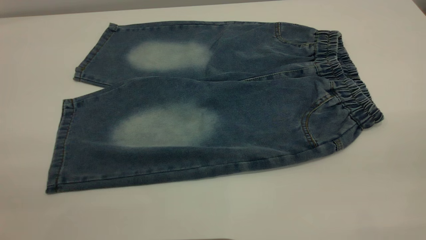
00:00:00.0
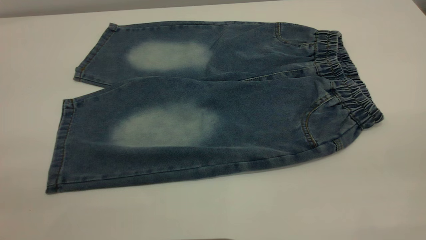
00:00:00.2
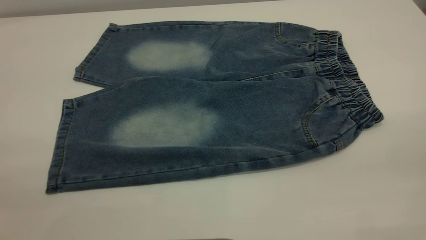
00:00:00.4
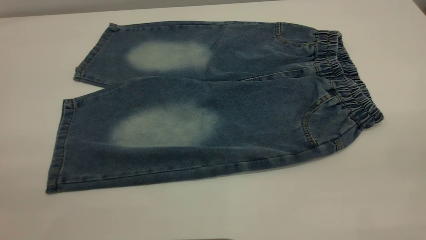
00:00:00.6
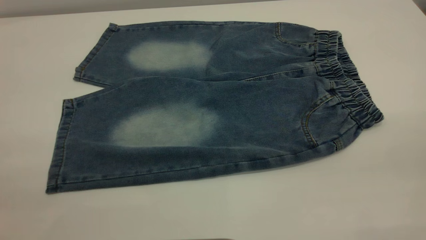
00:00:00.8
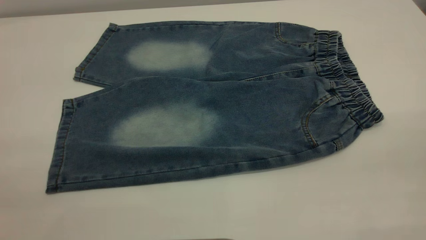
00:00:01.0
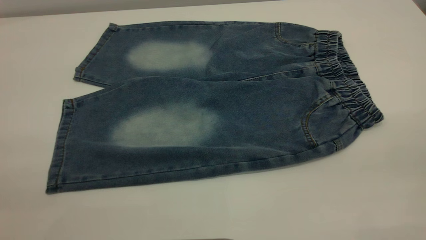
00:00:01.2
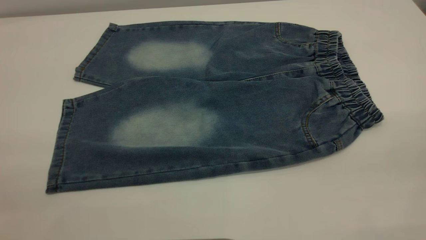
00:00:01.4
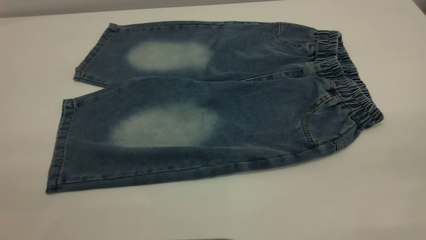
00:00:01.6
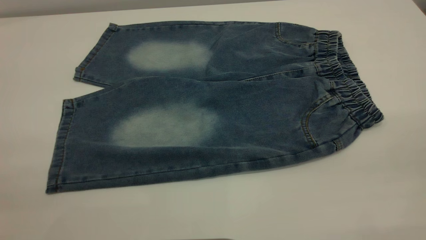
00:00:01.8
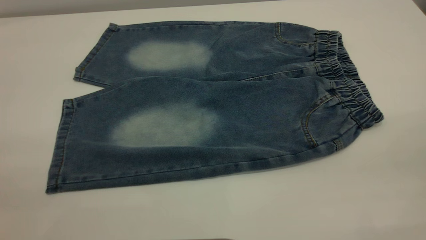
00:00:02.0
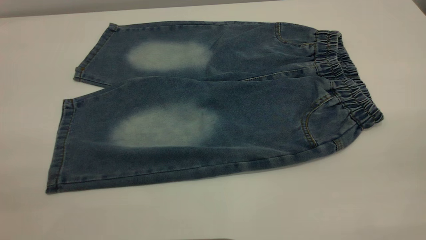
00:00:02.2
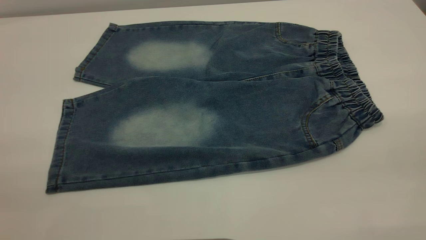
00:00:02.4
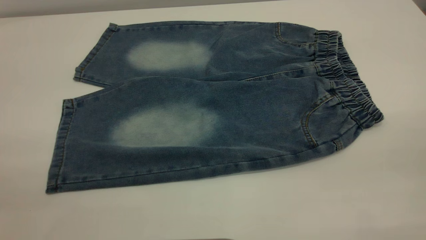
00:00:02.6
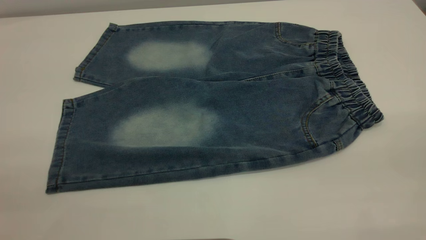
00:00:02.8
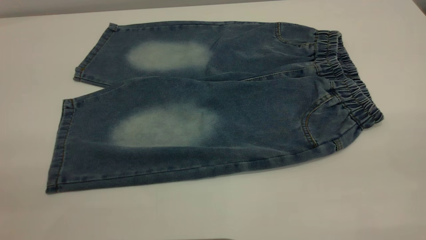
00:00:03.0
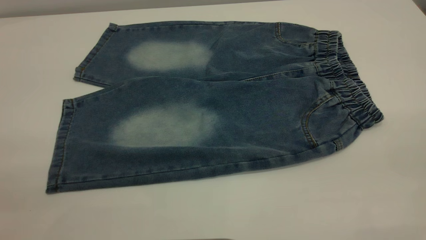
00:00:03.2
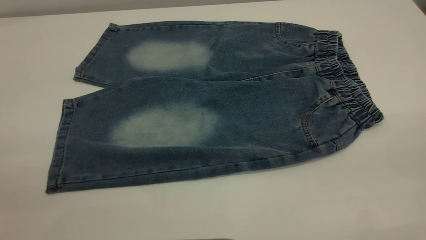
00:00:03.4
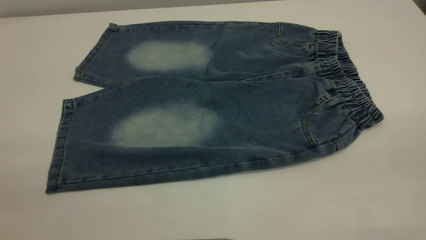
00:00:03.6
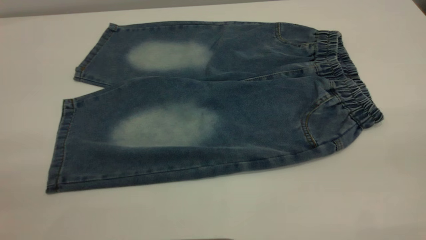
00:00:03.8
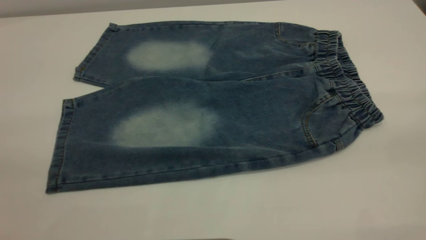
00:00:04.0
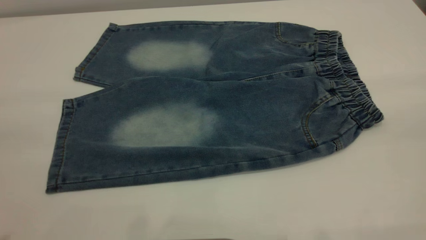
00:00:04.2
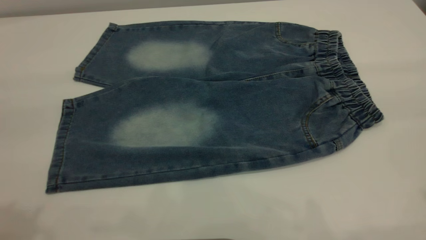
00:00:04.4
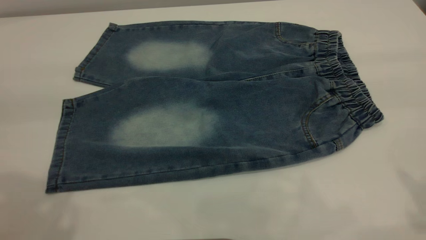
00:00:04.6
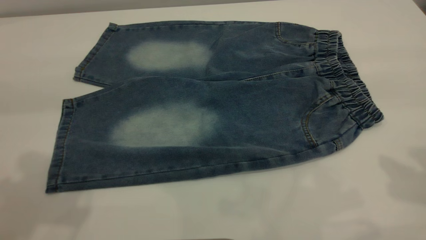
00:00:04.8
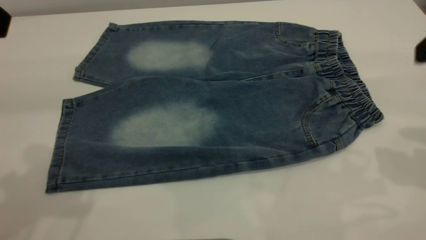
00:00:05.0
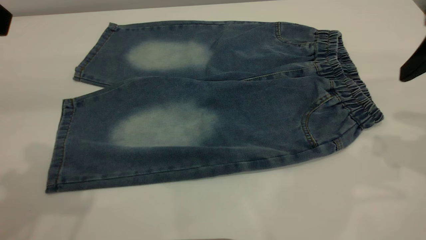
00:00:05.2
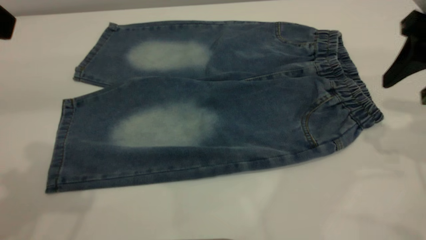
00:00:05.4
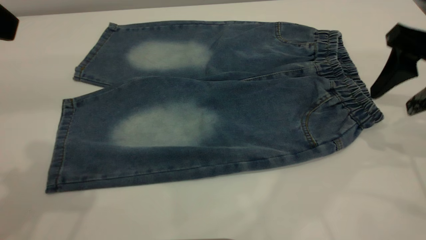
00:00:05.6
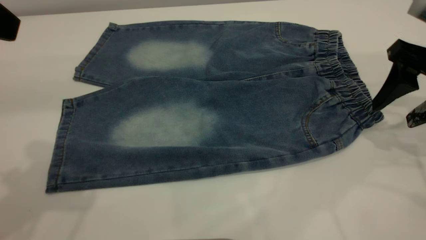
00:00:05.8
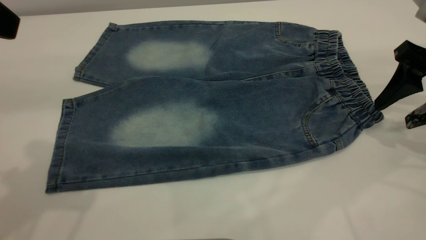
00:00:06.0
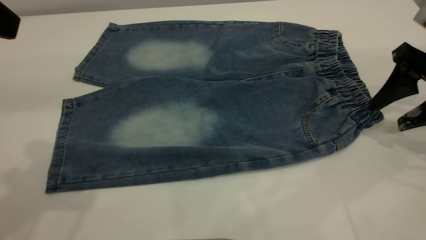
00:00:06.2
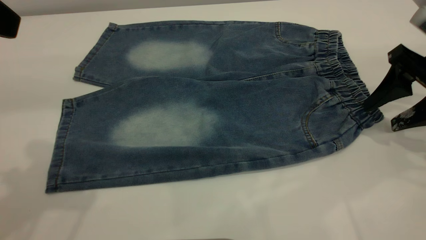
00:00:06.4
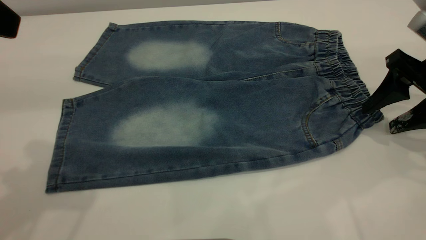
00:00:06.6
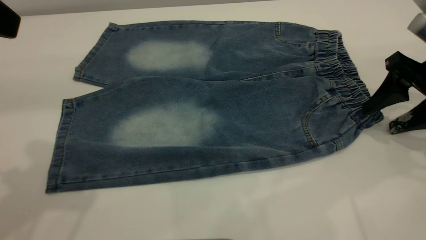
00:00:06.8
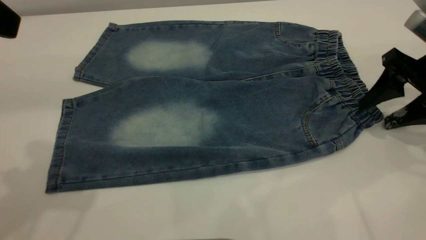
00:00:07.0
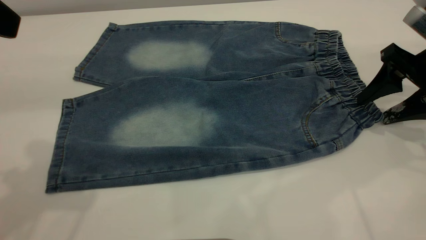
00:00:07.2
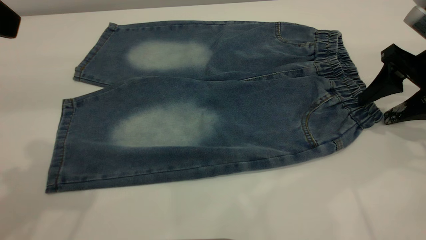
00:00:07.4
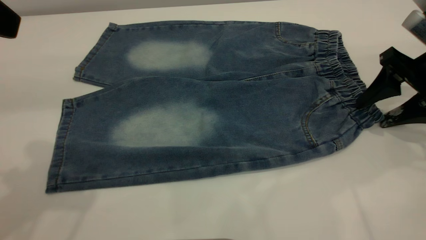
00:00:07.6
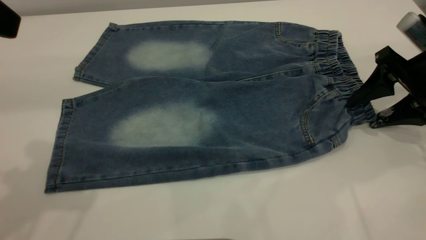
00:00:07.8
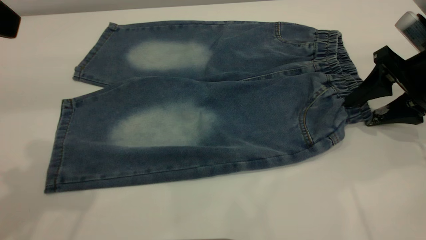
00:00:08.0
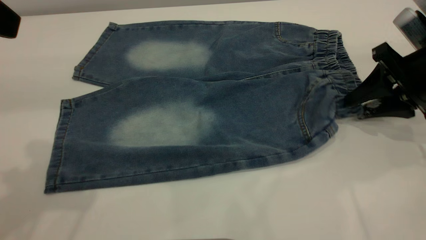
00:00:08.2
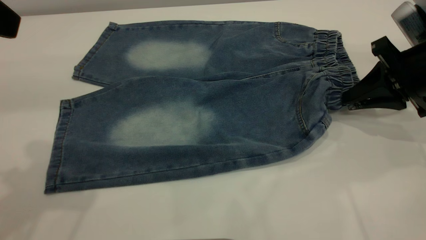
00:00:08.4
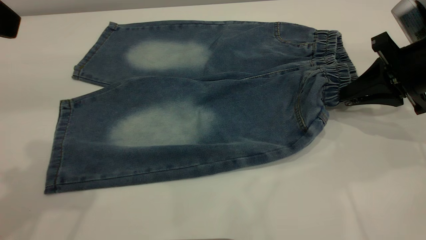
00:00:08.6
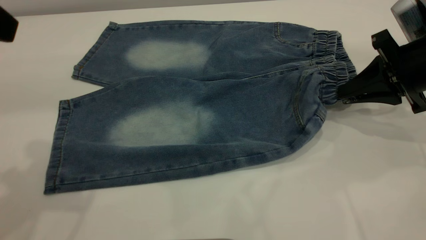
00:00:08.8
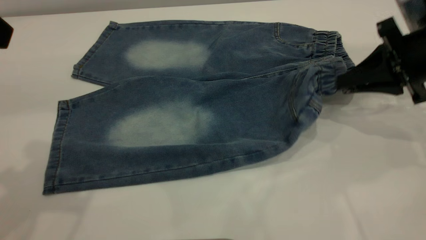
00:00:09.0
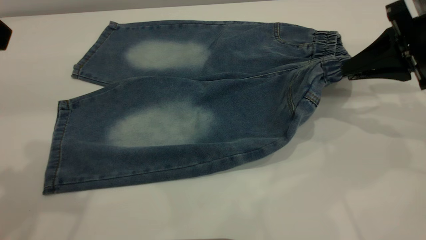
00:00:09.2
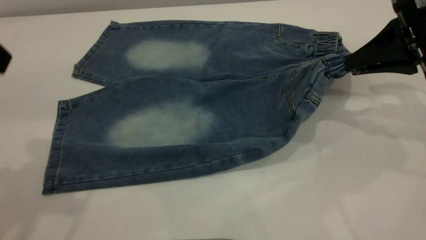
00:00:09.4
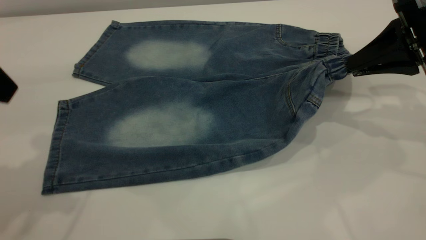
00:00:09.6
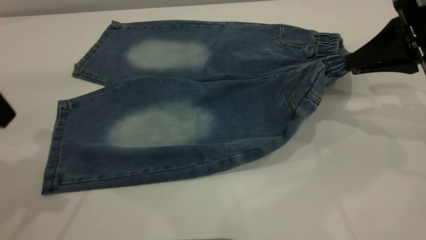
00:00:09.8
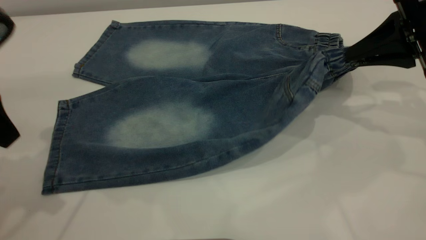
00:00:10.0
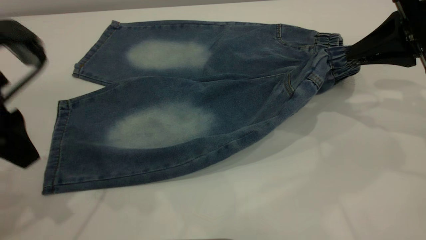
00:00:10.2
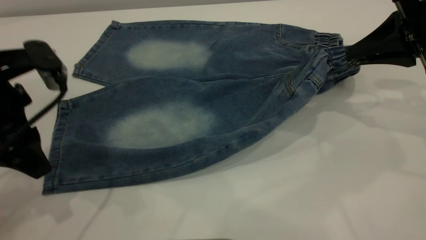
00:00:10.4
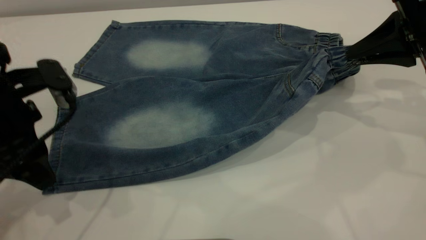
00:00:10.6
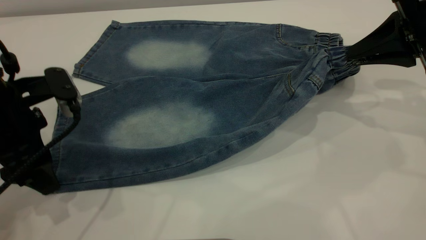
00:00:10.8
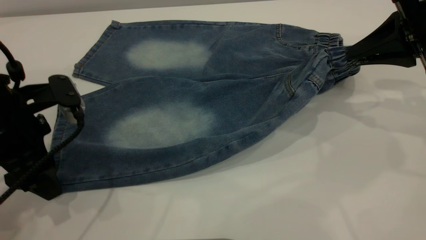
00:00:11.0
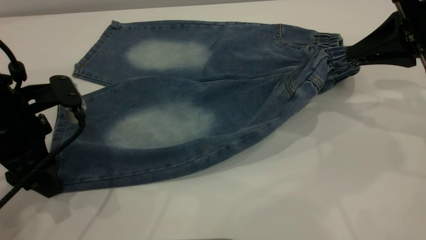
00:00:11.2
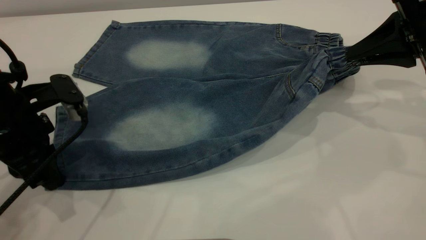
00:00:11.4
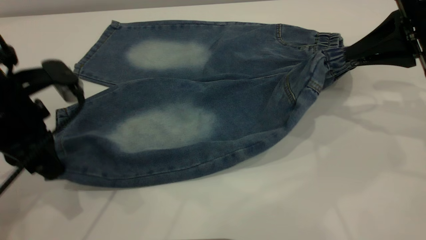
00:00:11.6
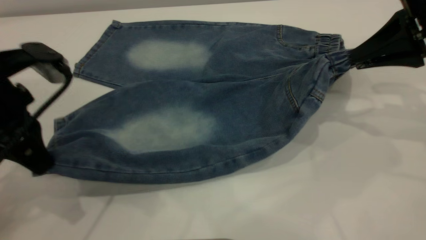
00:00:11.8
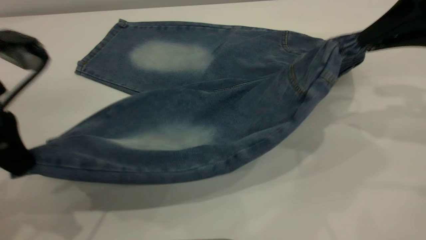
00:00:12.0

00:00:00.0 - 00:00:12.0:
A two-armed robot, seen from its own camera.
00:00:00.0 - 00:00:03.0: The two grippers keep their place.
00:00:04.4 - 00:00:06.0: The right gripper moves downward and forward, roughly 25 cm.
00:00:06.0 - 00:00:07.6: There are only small adjustments of the grippers.
00:00:07.6 - 00:00:09.0: The right gripper closes.
00:00:09.0 - 00:00:10.4: The left gripper heads downward, covering some 15 cm.
00:00:10.4 - 00:00:12.0: The left gripper moves some 5 cm, and closes. Meanwhile the right gripper shifts roughly 5 cm upward.

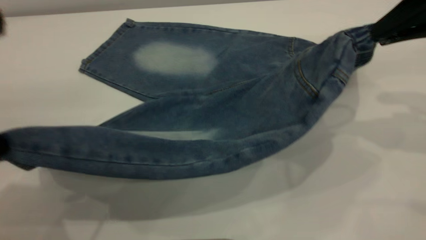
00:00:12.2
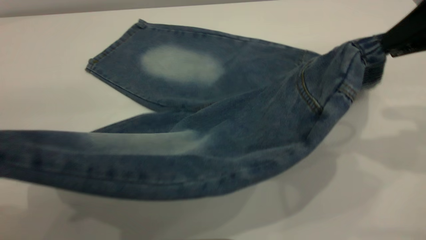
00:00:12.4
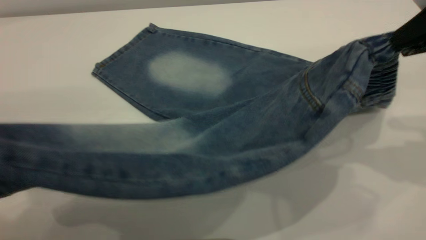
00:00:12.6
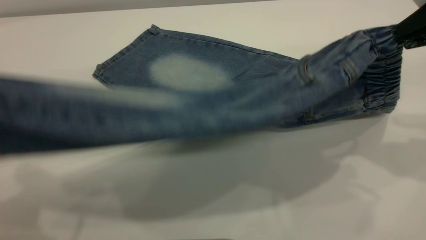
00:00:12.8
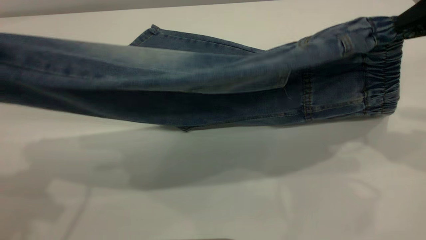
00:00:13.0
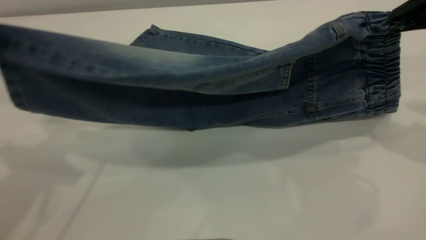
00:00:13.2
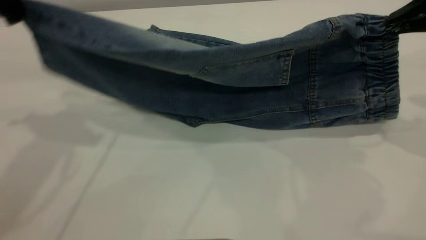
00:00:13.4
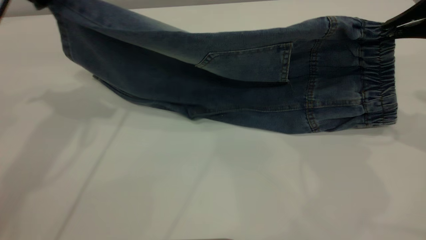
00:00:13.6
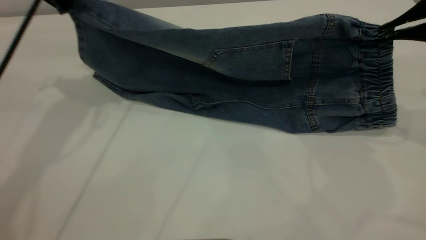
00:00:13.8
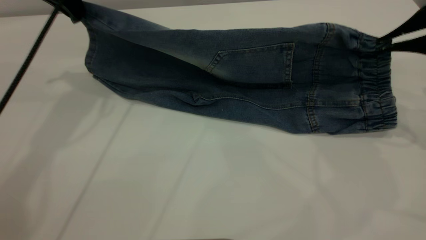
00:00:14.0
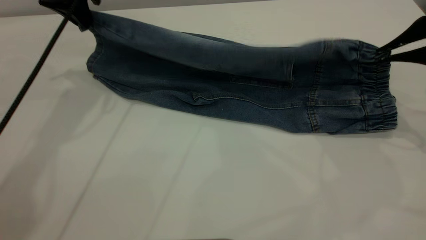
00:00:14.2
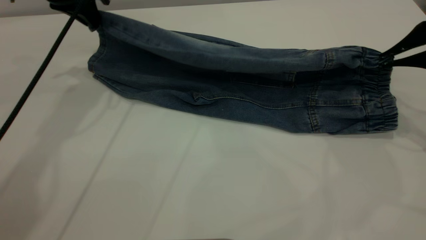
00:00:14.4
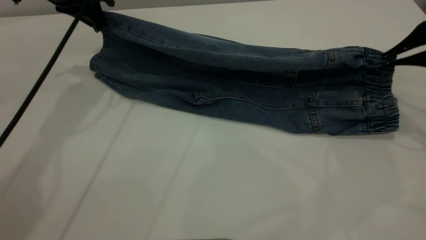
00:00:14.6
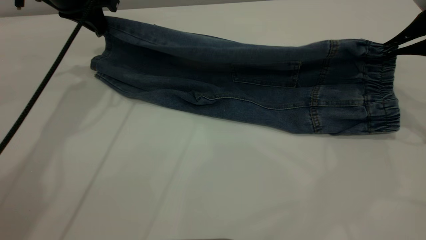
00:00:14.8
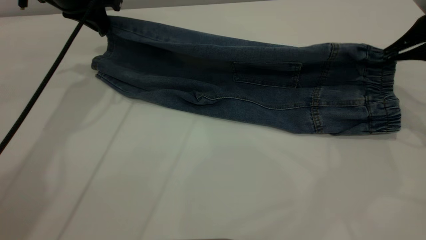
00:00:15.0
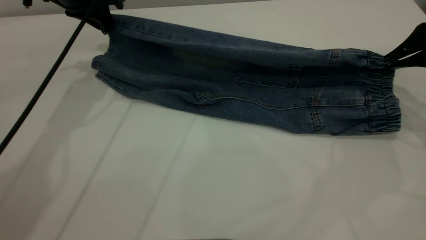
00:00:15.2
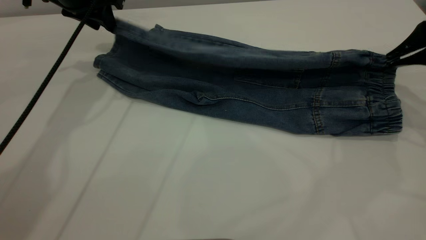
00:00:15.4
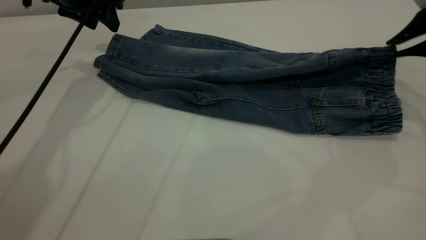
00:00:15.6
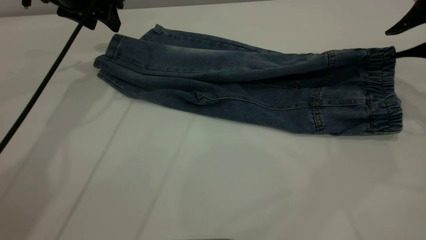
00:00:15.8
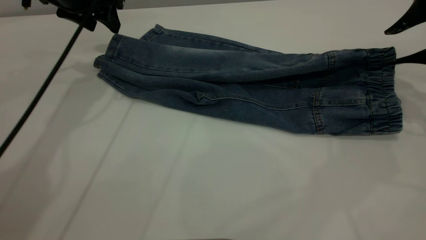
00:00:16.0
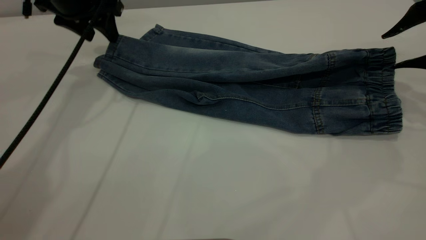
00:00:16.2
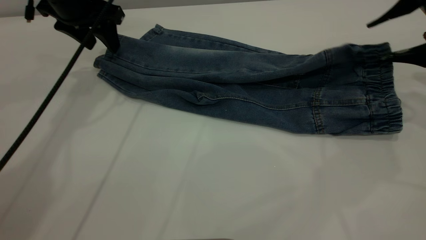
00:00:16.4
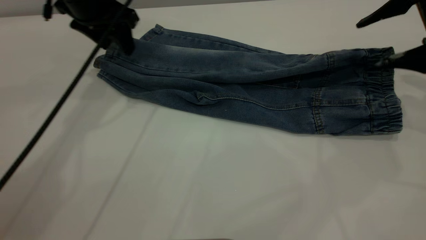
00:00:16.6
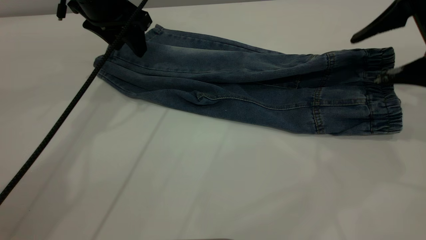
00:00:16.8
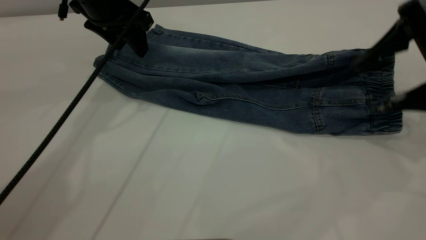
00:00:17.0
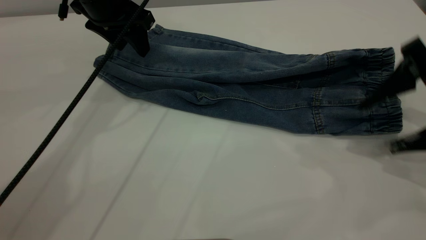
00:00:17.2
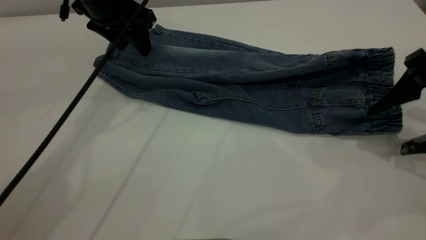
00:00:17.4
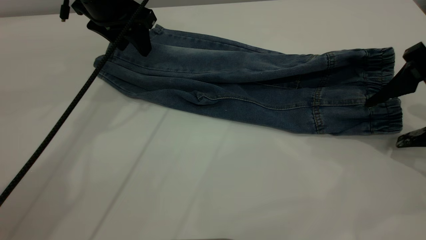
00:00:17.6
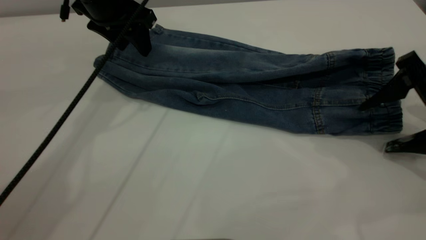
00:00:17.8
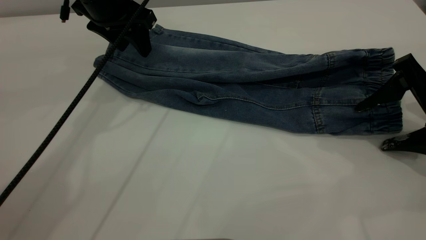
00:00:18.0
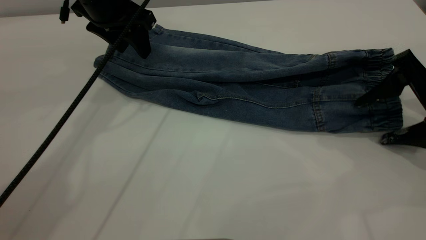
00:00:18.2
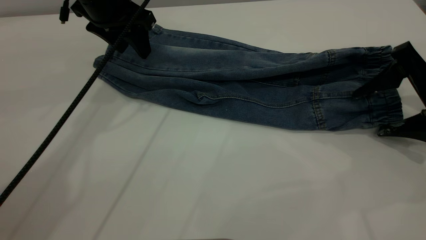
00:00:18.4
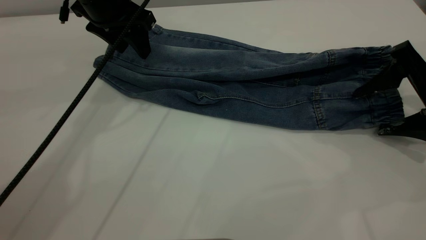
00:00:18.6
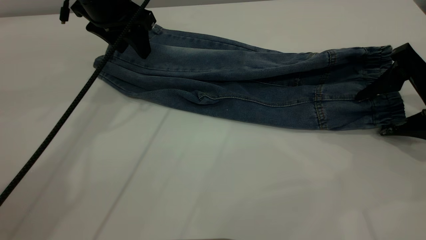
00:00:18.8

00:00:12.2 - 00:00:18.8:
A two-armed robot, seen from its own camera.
Step, 00:00:12.2 - 00:00:16.0: Fold the bottom of the pants upward.
00:00:12.2 - 00:00:13.8: The left gripper travels forward by about 20 cm.
00:00:13.8 - 00:00:15.4: The left gripper travels downward and forward by about 10 cm, and opens its fingers.
00:00:15.4 - 00:00:17.2: The left gripper moves to the right, some 5 cm; the right gripper travels backward by roughly 5 cm, and opens up.
00:00:17.2 - 00:00:18.8: The grippers move only a little.
